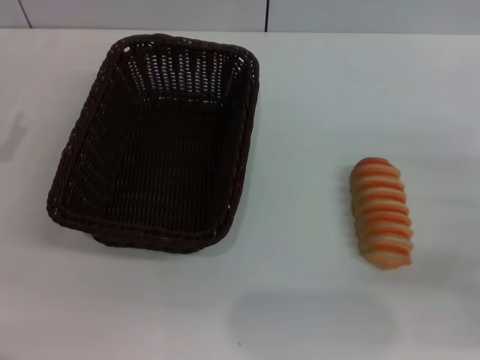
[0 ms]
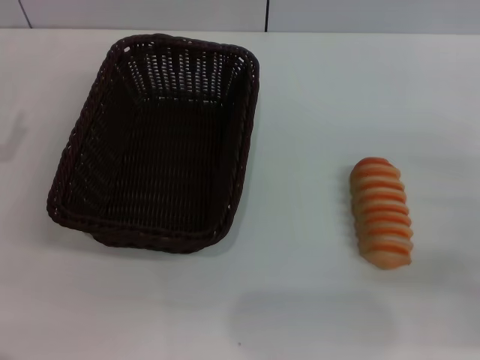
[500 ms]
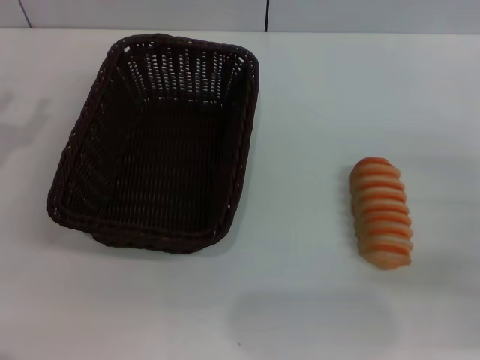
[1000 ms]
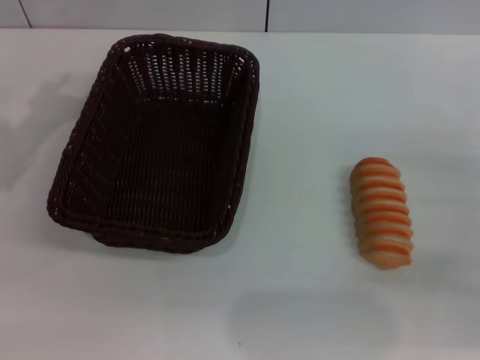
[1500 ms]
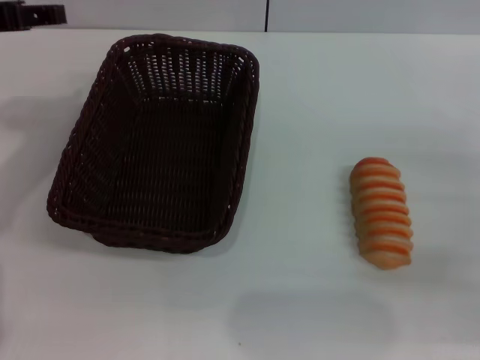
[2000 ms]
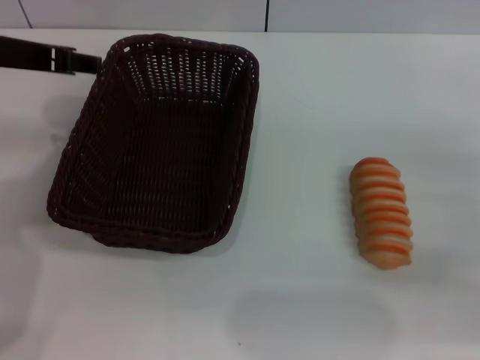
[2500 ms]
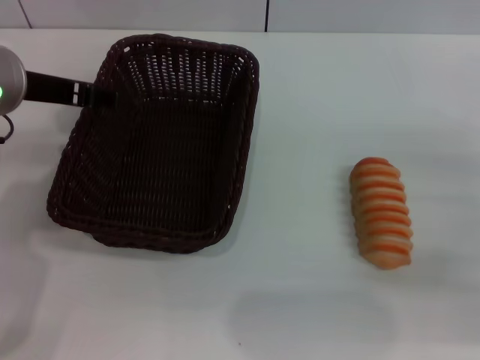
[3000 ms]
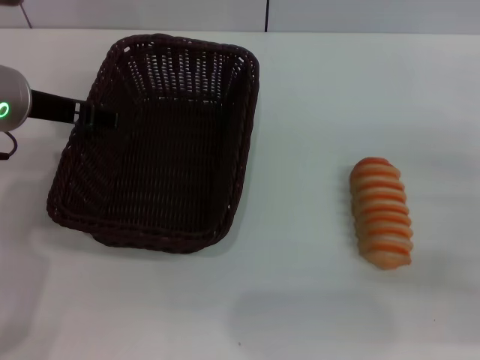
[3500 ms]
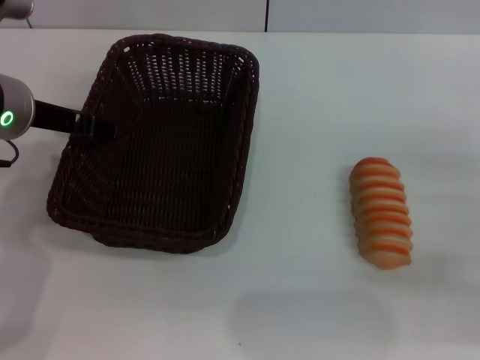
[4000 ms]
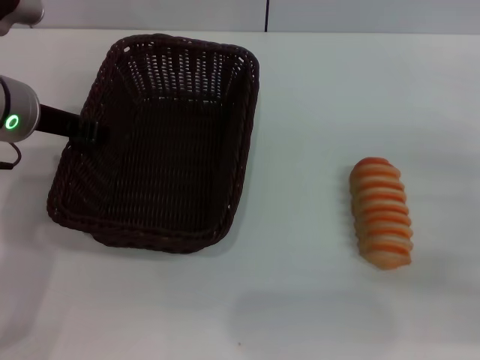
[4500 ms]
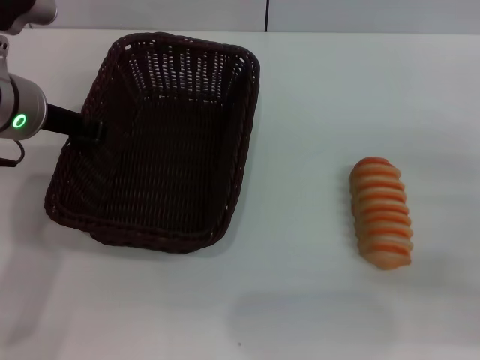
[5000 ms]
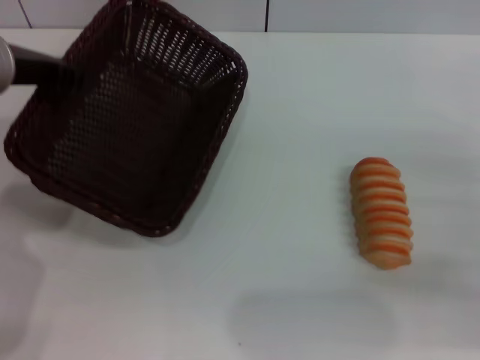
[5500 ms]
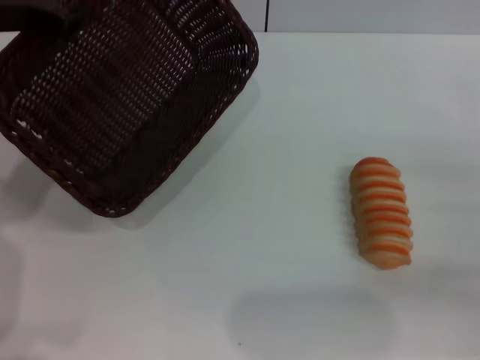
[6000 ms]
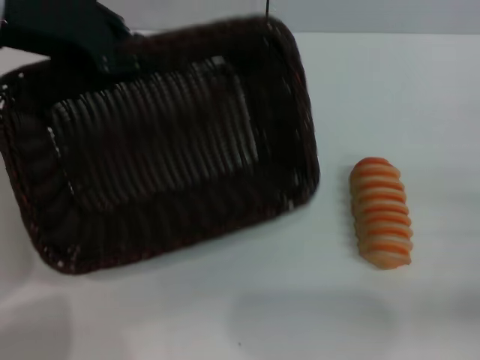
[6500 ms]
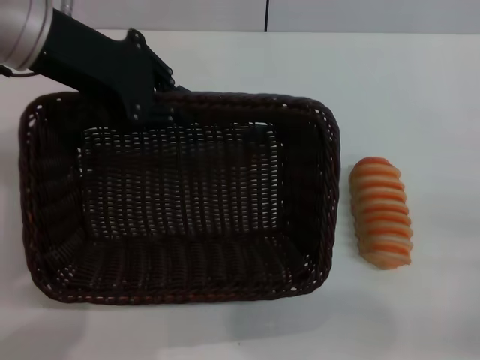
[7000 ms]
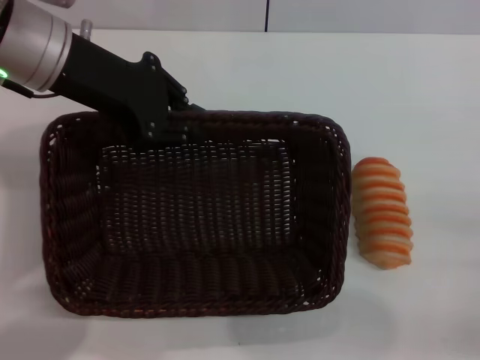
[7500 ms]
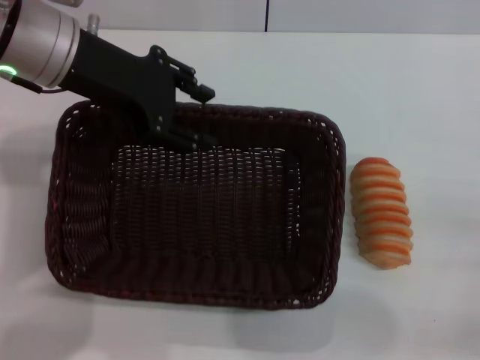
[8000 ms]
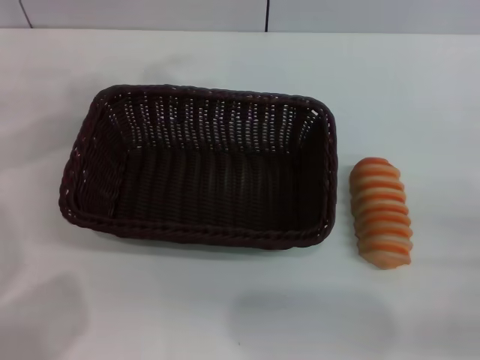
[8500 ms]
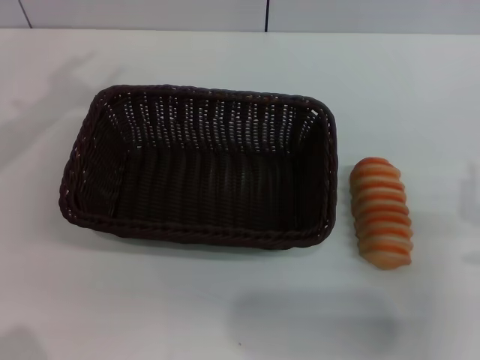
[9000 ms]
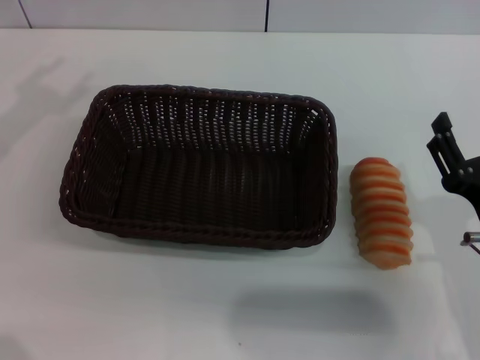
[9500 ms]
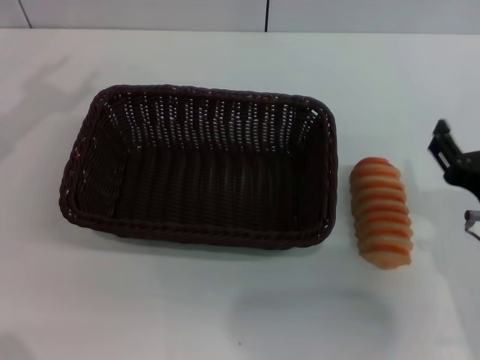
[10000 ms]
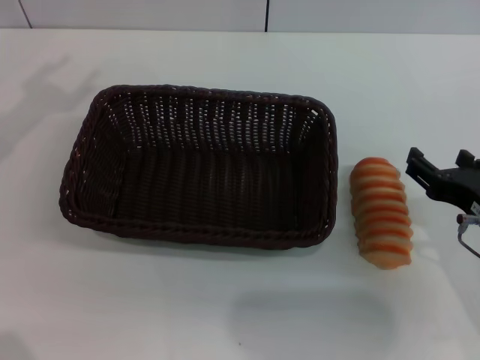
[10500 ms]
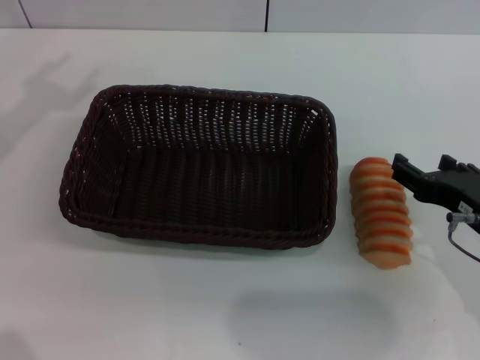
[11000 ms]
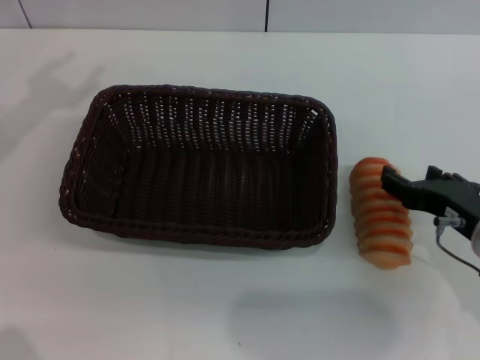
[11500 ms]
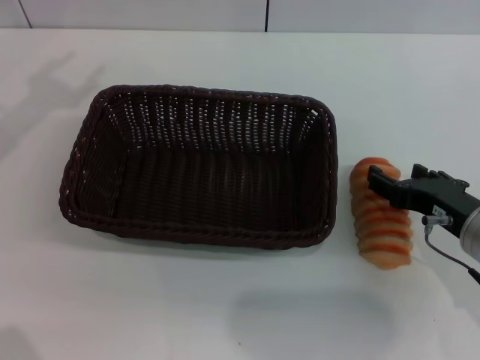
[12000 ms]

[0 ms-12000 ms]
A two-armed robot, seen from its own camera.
Step, 0 ms to 5500 ms: Pick up the dark basket with the left gripper.
Step, 6000 ms to 8000 ms: Place the dark basket in the center of view with the left gripper.
0 ms to 2000 ms: The left gripper heads upward, to the right and forward, covering approximately 20 cm.
2000 ms to 4000 ms: The left gripper moves downward and to the right, roughly 10 cm.
4000 ms to 6000 ms: The left gripper goes about 10 cm upward, and closes its fingers.
6000 ms to 8000 ms: The left gripper is displaced to the right by some 5 cm, and opens up. Meanwhile the right gripper moves backward, some 5 cm.
8000 ms to 10000 ms: The two grippers go about 15 cm to the left. The right gripper opens up.

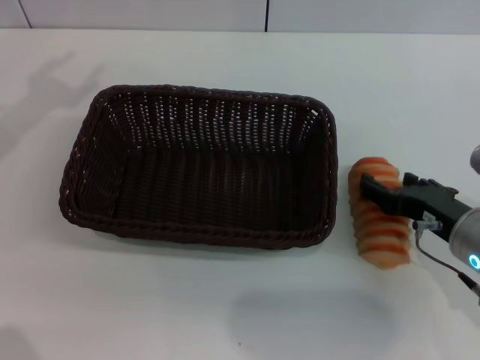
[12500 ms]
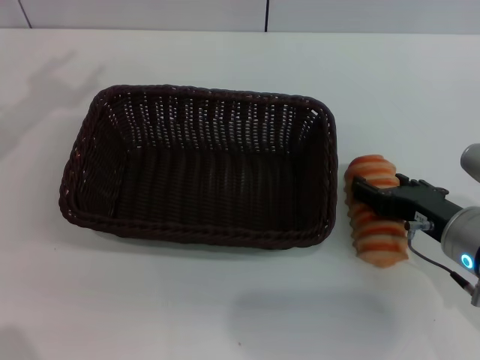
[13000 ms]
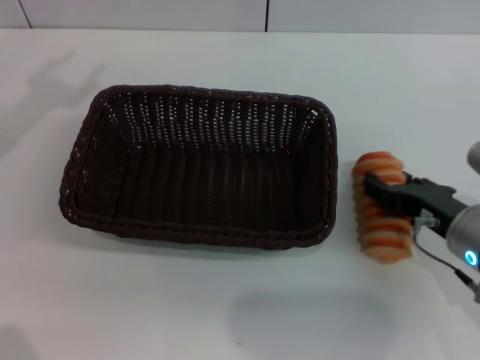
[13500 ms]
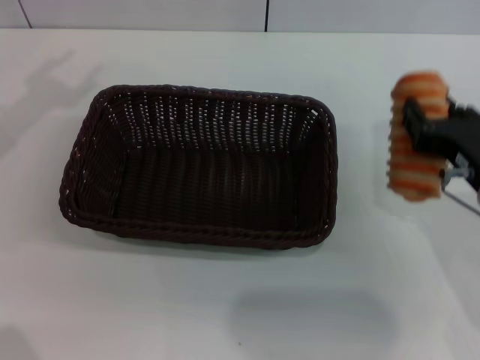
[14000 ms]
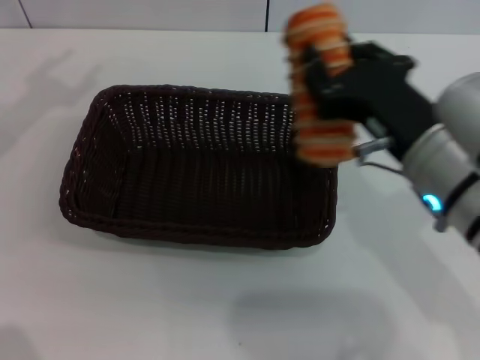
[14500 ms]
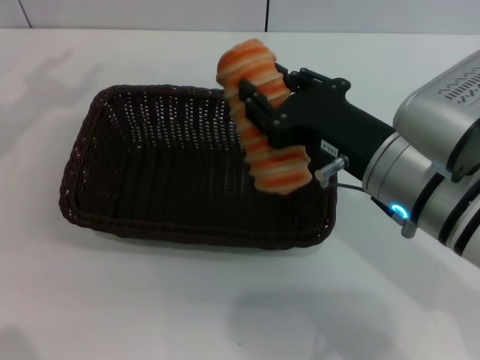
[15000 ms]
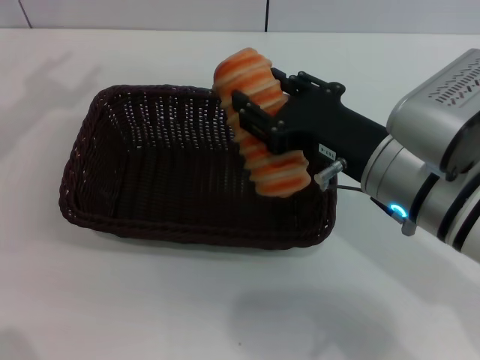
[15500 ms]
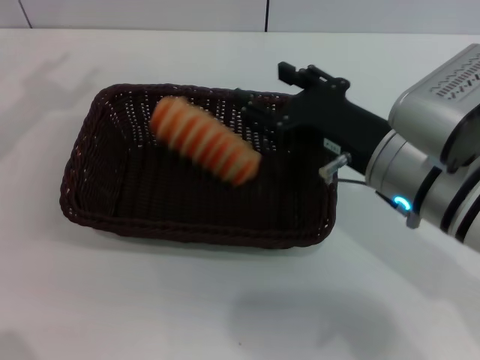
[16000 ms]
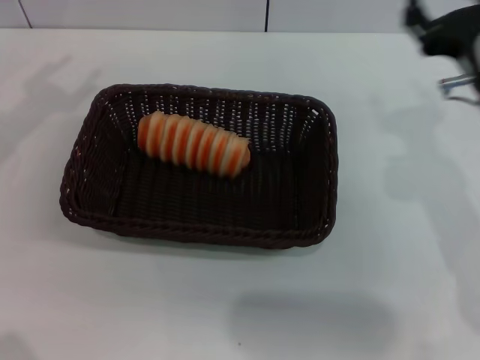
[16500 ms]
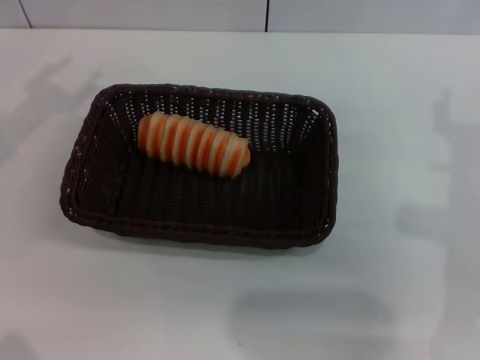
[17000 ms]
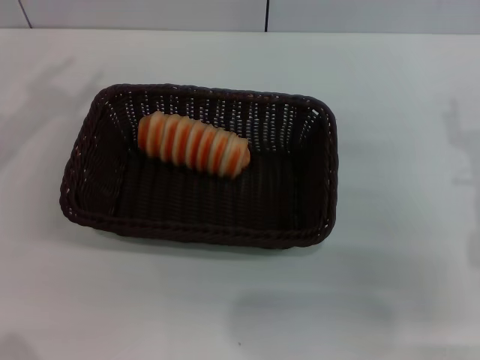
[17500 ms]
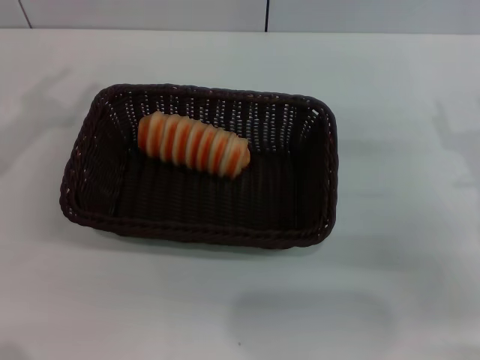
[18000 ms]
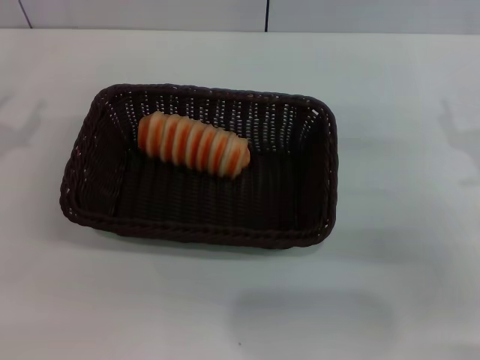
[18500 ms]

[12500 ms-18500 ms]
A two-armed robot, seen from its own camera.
Step, 14000 ms to 16000 ms: Place the long bread into the dark basket with the right gripper.
12500 ms to 14500 ms: The right gripper travels upward and to the left by approximately 10 cm, and closes.
14500 ms to 16500 ms: The right gripper moves forward and to the right, some 10 cm, and opens up.
16500 ms to 18500 ms: The right gripper moves to the right, some 10 cm.
